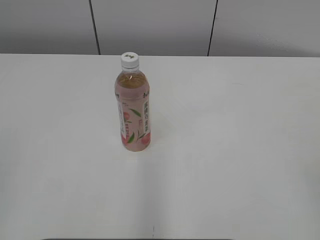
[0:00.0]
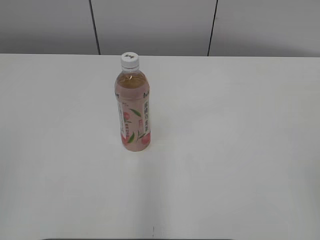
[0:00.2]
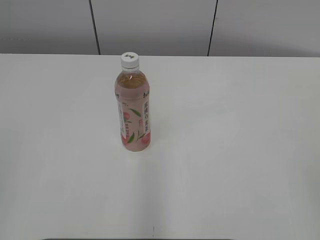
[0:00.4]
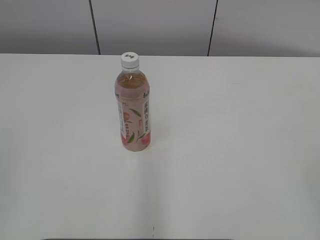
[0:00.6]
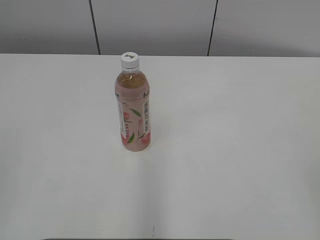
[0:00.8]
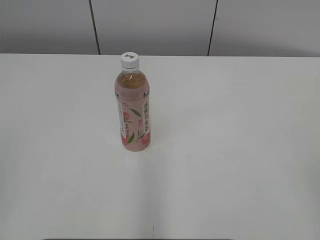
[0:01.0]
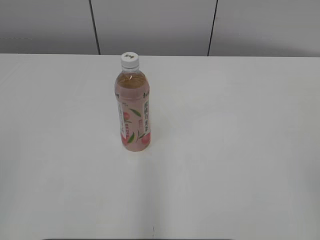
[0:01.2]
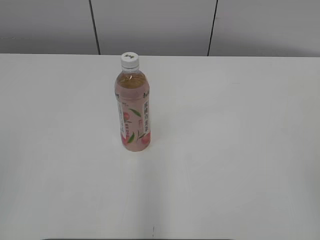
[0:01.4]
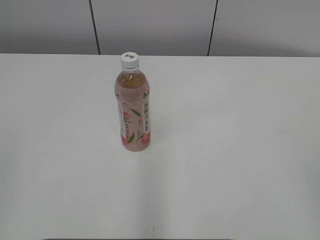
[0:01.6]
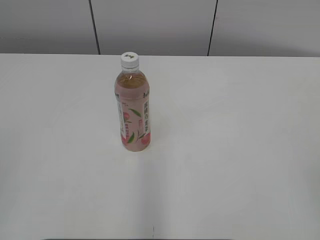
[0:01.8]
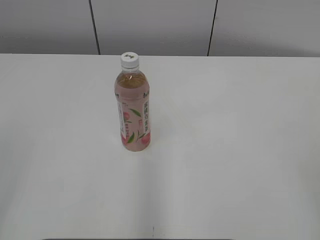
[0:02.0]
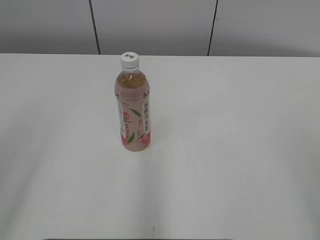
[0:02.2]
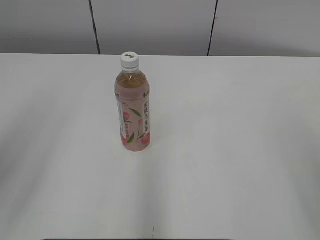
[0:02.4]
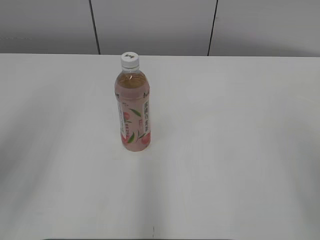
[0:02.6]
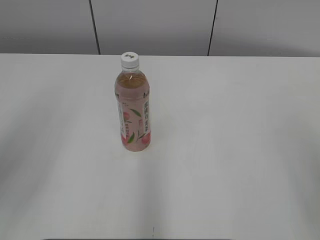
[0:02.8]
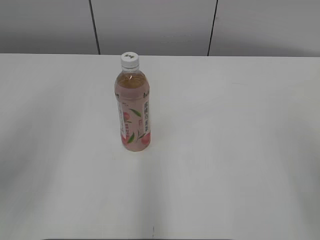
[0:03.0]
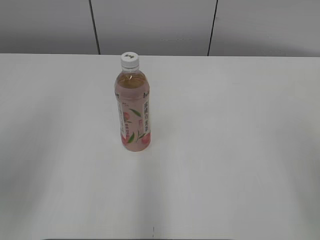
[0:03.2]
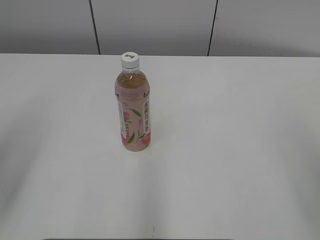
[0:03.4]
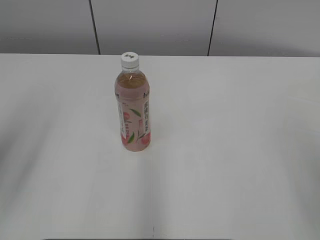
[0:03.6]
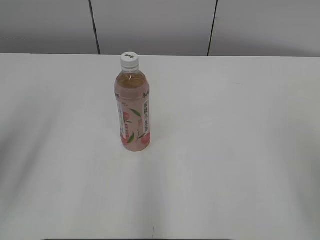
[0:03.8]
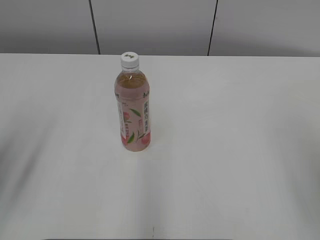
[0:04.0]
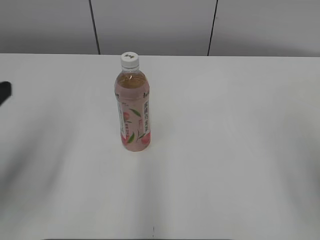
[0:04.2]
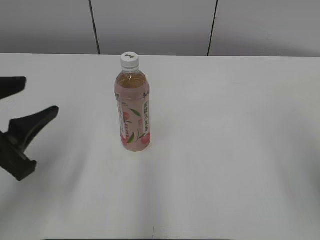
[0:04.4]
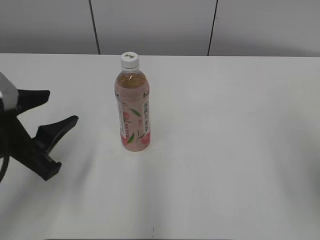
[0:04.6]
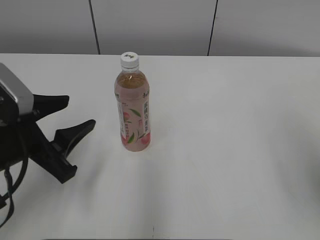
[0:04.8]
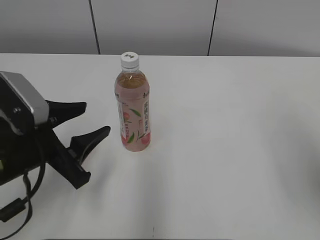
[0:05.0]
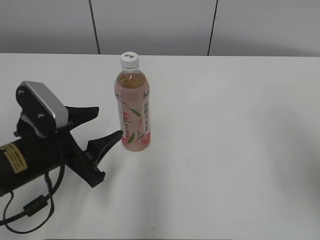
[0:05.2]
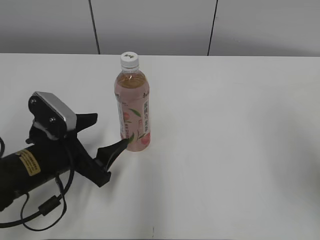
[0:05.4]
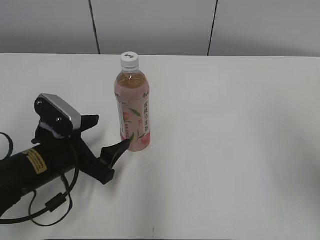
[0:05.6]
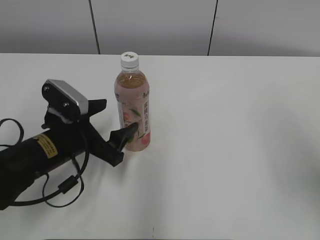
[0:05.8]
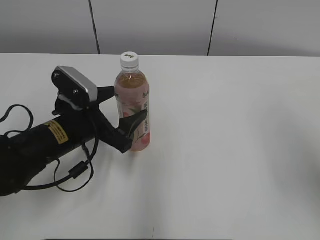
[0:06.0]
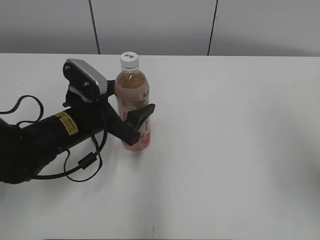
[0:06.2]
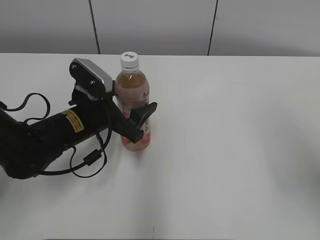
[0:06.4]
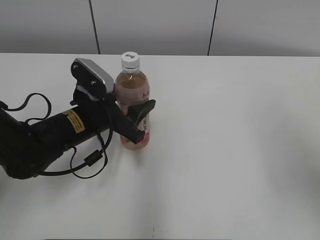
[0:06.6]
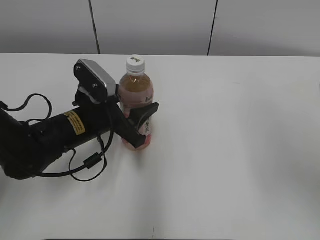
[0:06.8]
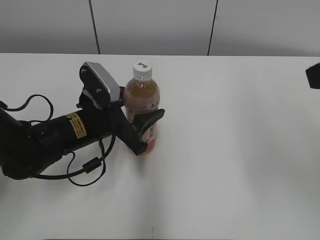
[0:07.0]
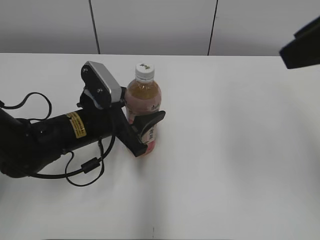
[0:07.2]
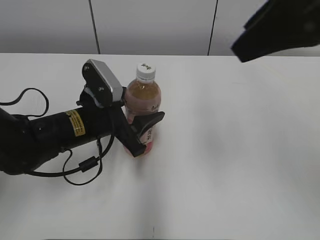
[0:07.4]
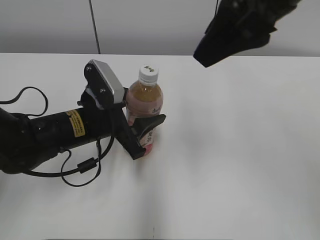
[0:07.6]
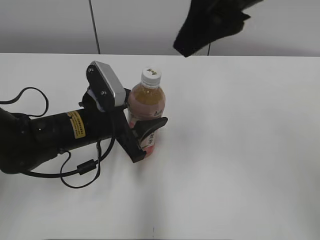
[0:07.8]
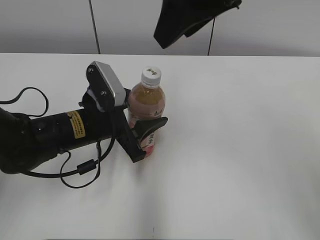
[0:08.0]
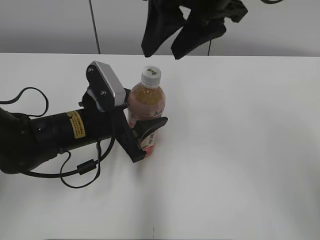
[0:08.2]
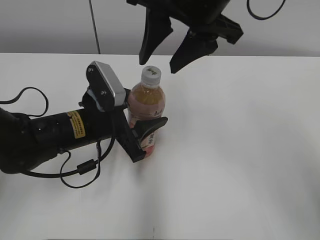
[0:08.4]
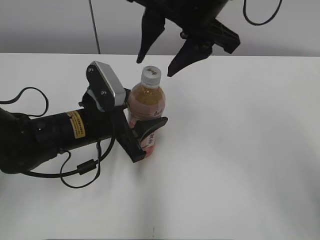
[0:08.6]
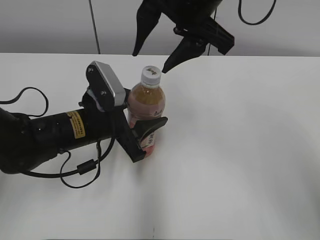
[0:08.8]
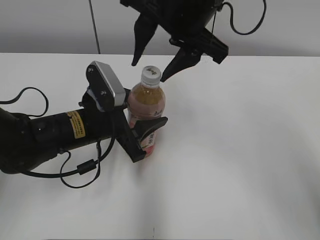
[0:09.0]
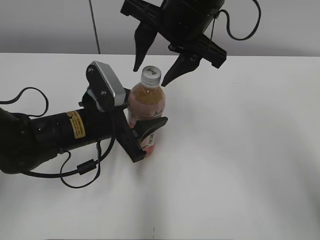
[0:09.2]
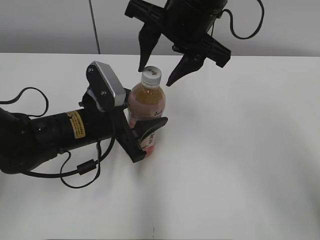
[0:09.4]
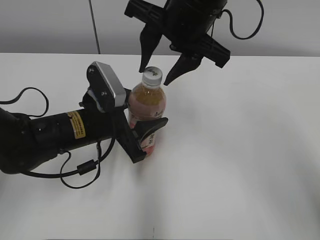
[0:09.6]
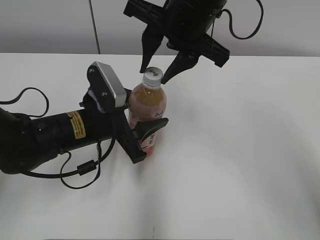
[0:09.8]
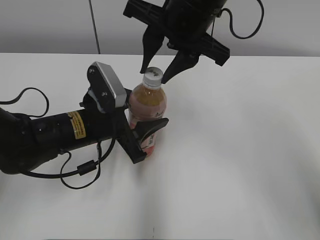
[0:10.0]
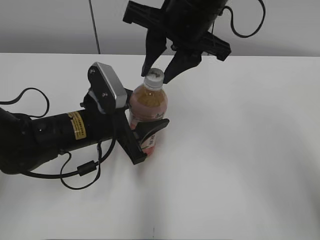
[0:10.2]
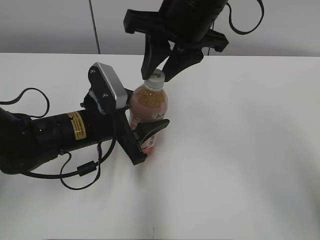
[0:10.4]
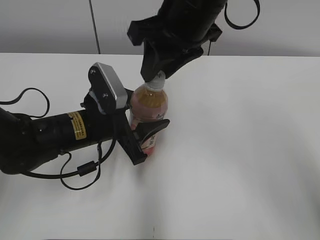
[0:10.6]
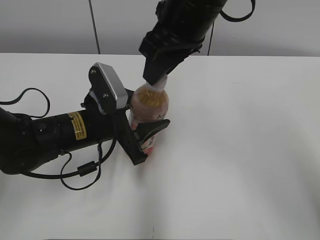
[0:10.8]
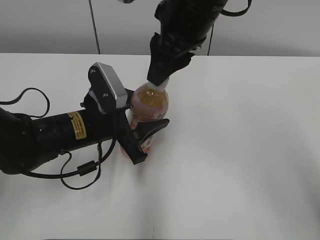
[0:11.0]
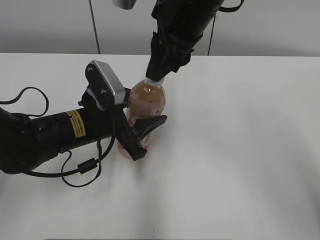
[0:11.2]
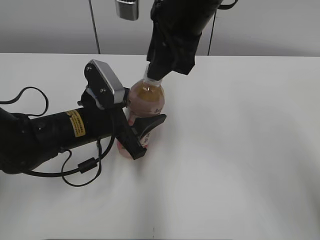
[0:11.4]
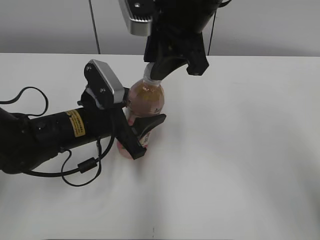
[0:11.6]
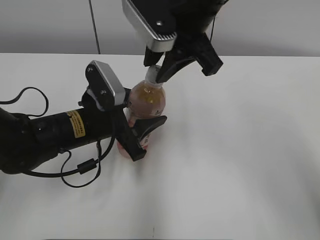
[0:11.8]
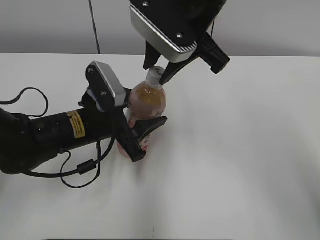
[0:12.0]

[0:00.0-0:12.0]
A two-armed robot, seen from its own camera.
Step, 0:00.0 to 0:06.4: Grab the Peach Oolong Tea with the left hand.
0:01.6 to 0:03.0: The left gripper is displaced forward by approximately 15 cm, and opens its fingers.
0:03.0 to 0:04.4: The left gripper moves downward, some 10 cm.
0:04.4 to 0:06.0: The left gripper travels downward, forward and to the right by some 20 cm, and opens its fingers.
0:06.0 to 0:07.6: The right gripper goes some 20 cm to the left, forward and upward. Meanwhile the left gripper closes up.
0:07.6 to 0:09.0: The right gripper shifts some 10 cm to the left, forward and downward.
0:09.0 to 0:10.4: The right gripper closes.

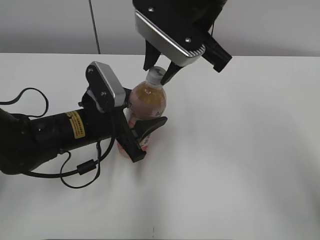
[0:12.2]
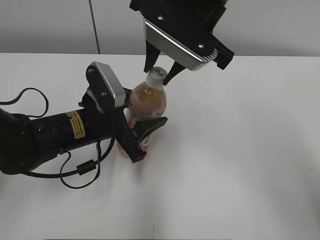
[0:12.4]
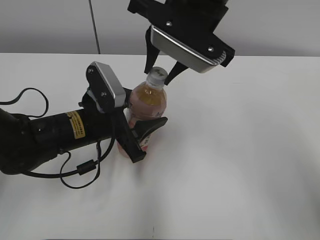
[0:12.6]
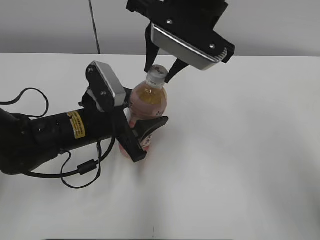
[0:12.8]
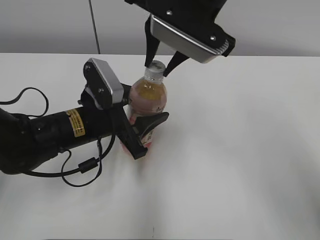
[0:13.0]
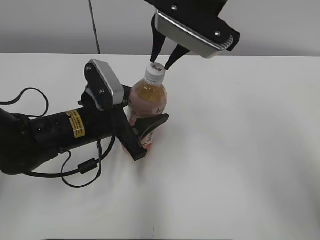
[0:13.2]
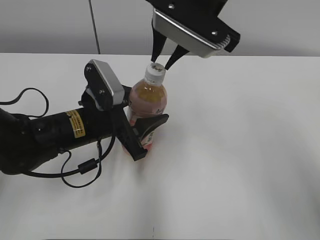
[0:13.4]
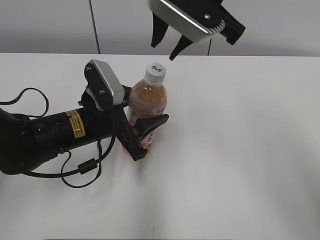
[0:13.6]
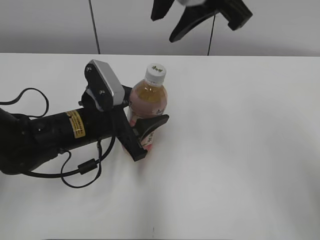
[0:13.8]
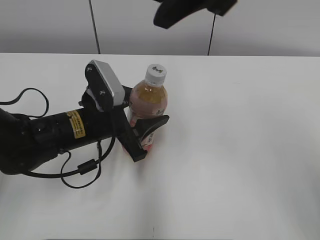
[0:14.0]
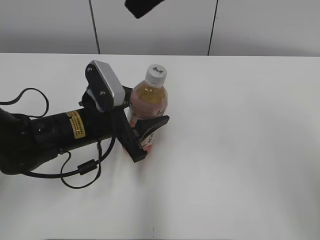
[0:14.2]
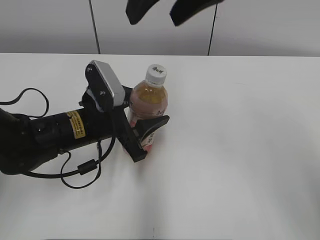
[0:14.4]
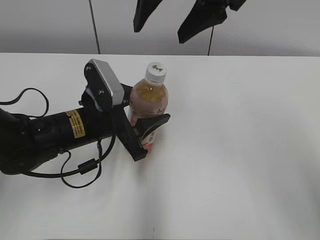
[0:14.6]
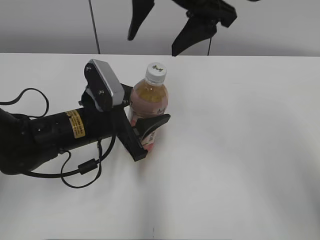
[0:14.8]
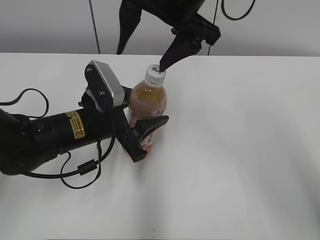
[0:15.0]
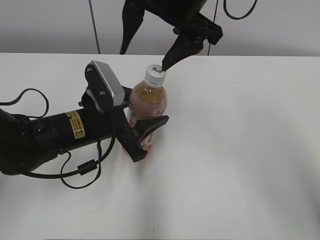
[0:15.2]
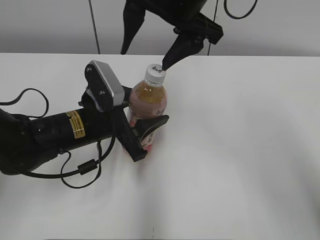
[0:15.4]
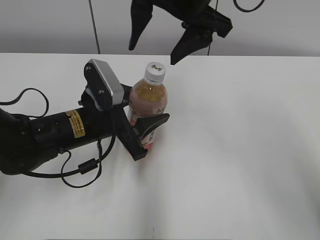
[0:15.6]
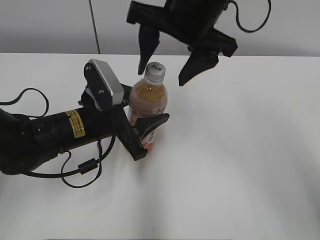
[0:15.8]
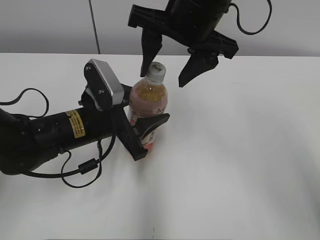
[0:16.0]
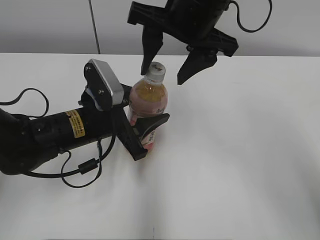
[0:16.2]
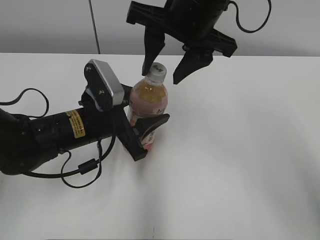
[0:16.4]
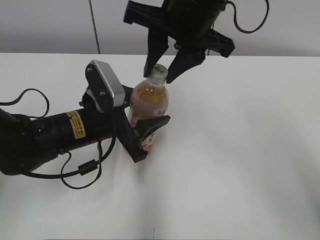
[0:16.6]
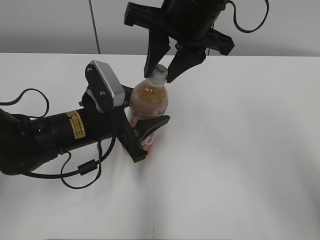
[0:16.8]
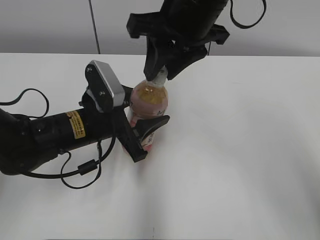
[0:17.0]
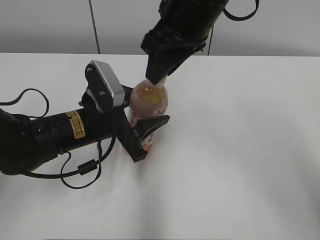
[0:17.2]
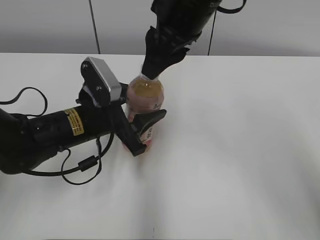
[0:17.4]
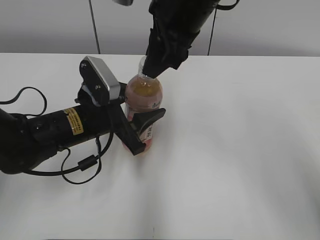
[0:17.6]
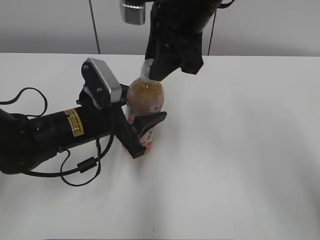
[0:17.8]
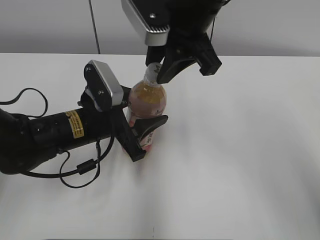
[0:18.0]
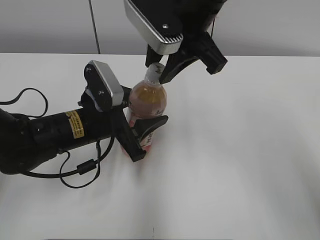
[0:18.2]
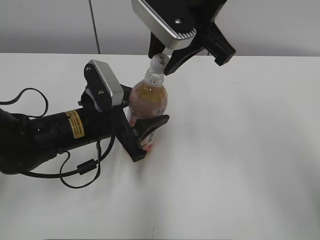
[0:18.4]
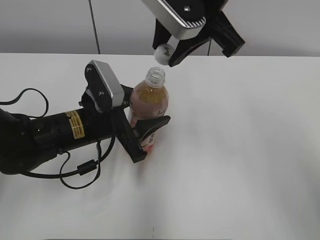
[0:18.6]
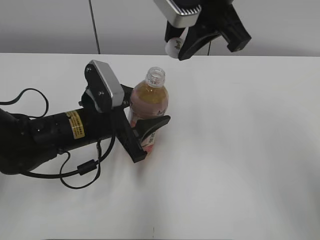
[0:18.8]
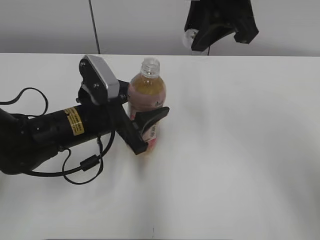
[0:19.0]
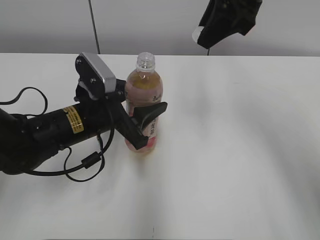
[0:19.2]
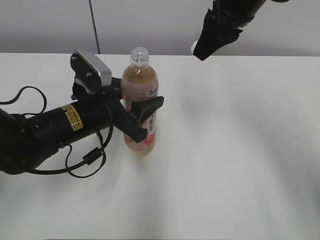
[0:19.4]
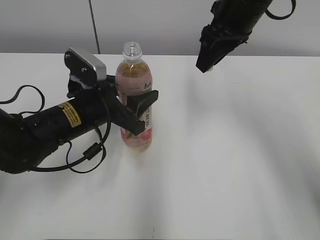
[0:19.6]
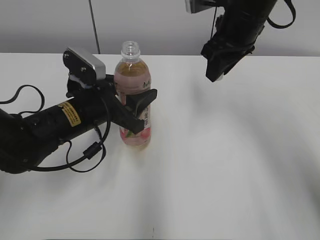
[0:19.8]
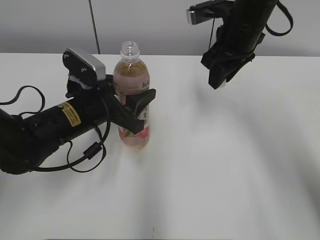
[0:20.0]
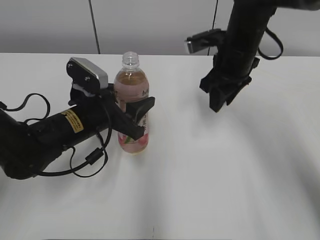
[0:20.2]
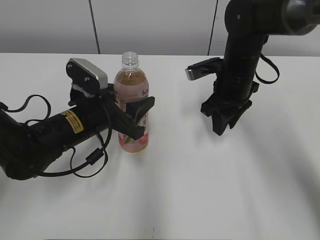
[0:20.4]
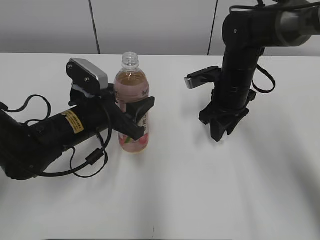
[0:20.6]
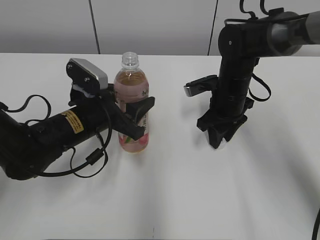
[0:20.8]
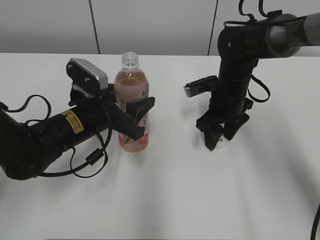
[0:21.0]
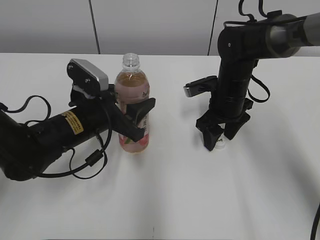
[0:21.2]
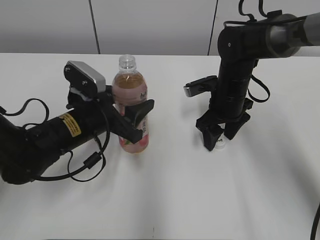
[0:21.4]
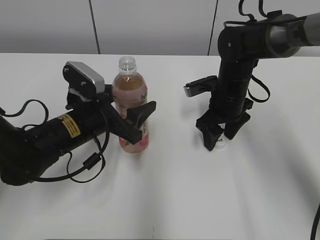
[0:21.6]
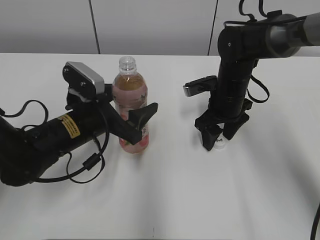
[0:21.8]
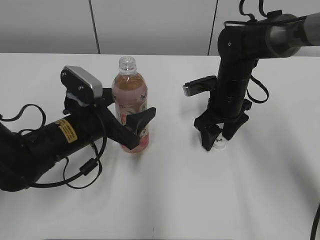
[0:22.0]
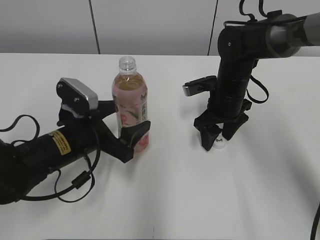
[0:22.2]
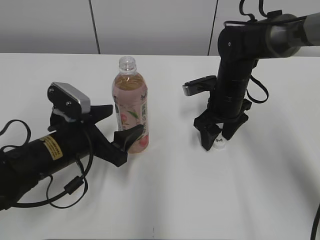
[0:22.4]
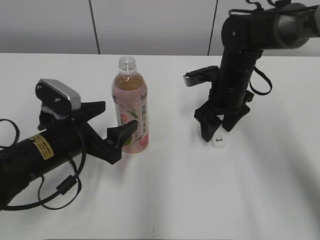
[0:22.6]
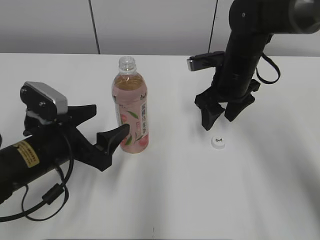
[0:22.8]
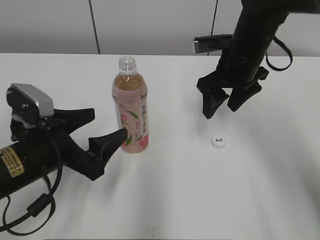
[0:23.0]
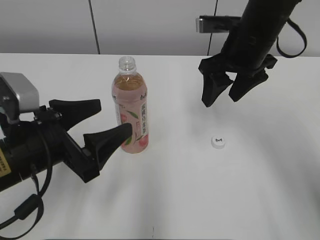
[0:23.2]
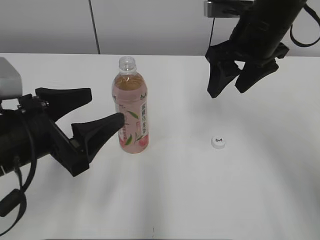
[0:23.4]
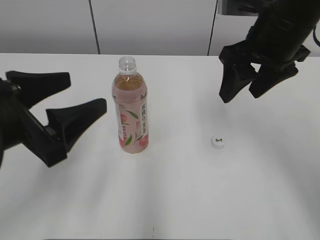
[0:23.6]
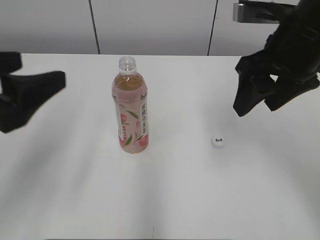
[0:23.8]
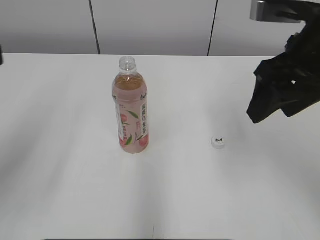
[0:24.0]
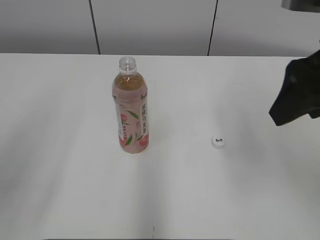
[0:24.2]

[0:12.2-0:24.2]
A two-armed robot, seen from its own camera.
Step, 0:18.4 to 0:20.8: Place the bottle cap on the right.
Step, 0:21.2 to 0:21.6: Place the Peach Oolong Tea with the left hand.
0:12.2 to 0:13.8: The right gripper heads upward, covering roughly 5 cm.
0:13.8 to 0:15.2: The right gripper shifts by about 5 cm, and opens.
0:15.2 to 0:16.6: The right gripper closes up.
0:18.2 to 0:19.8: The right gripper moves to the right and forward, approximately 10 cm.
0:19.8 to 0:21.2: The right gripper moves downward, approximately 15 cm, and opens up.
0:21.2 to 0:22.6: The left gripper shifts by roughly 5 cm, and opens up.
0:22.6 to 0:24.2: The right gripper heads upward and backward, covering some 25 cm. Meanwhile the left gripper moves upward, backward and to the left, about 30 cm.
